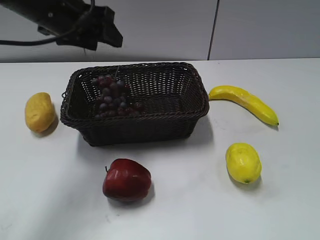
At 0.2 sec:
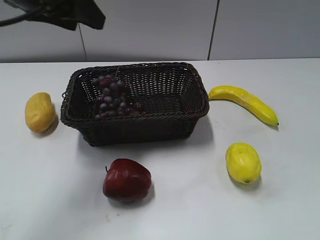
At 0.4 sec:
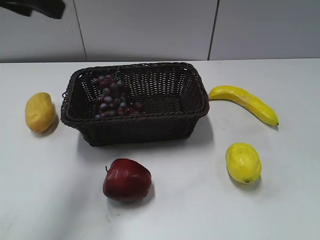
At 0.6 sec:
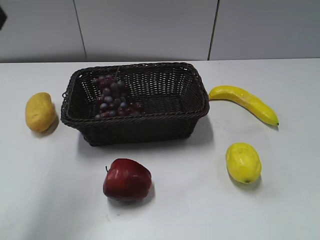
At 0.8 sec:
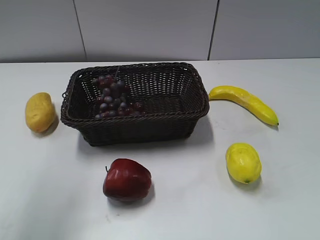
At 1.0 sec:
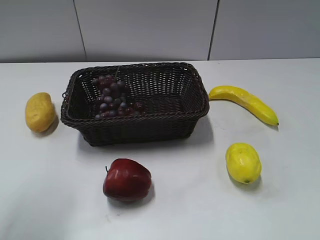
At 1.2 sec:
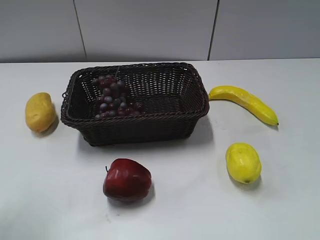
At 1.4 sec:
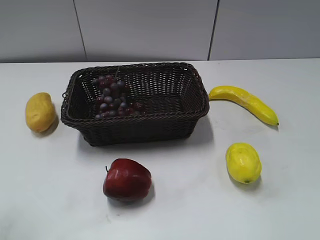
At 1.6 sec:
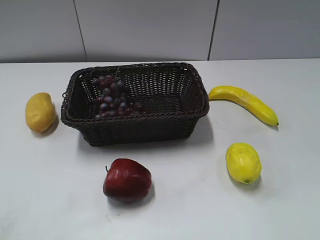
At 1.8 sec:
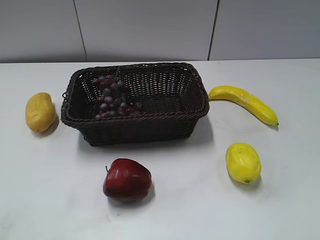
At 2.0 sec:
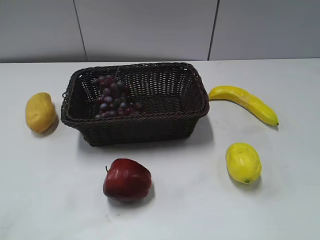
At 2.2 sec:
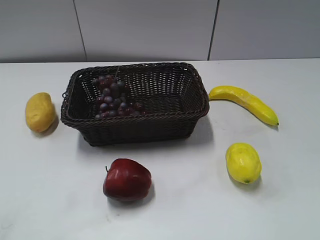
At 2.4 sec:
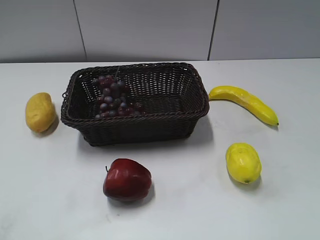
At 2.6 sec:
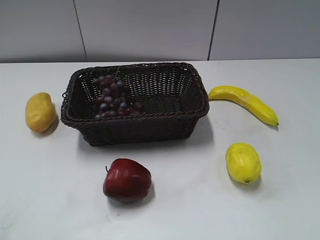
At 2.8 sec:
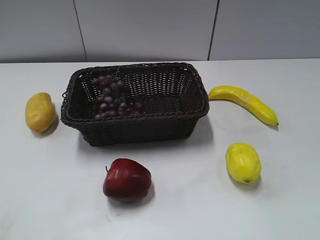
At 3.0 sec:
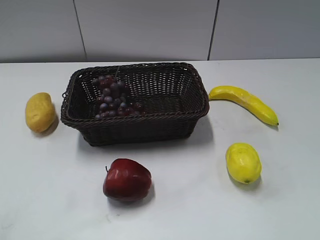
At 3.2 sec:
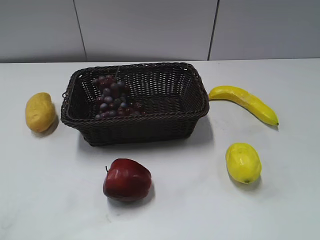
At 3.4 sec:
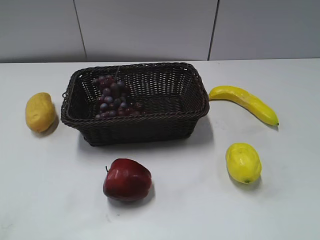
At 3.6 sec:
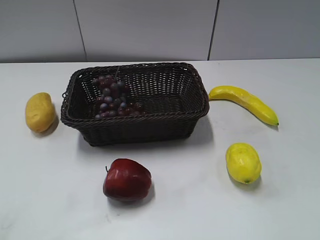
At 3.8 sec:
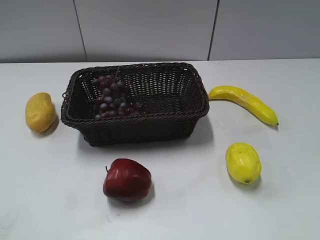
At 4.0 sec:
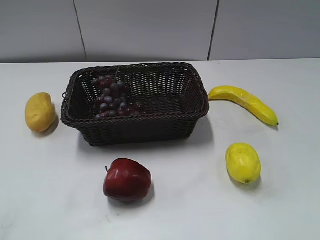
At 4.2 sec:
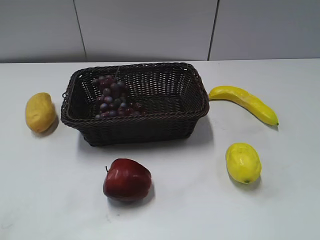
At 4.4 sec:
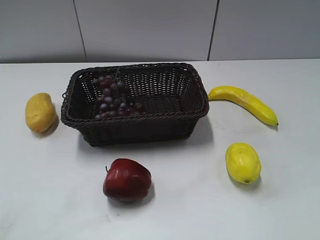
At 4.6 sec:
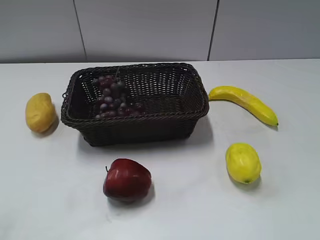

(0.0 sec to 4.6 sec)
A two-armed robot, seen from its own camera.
0.0 sec - 1.6 sec: The left gripper heads backward and to the left, covering some 30 cm.

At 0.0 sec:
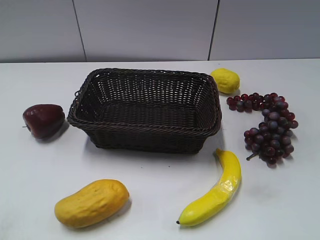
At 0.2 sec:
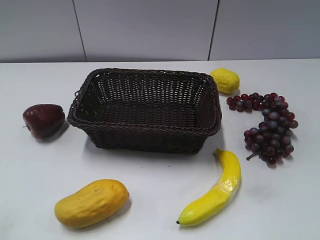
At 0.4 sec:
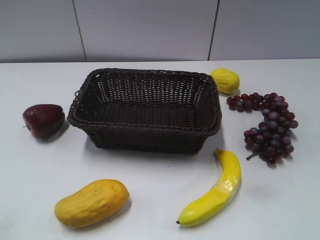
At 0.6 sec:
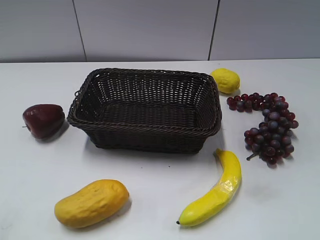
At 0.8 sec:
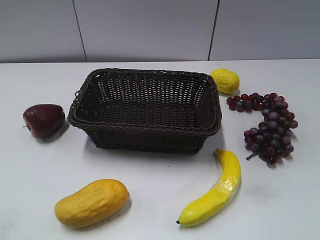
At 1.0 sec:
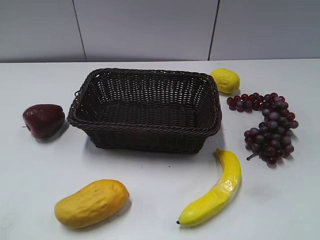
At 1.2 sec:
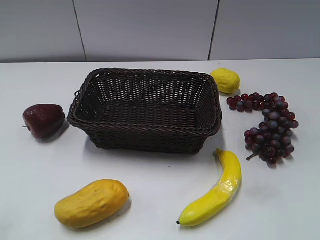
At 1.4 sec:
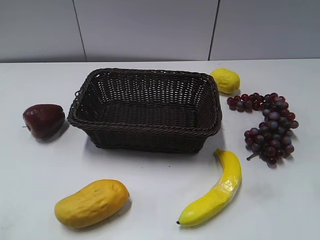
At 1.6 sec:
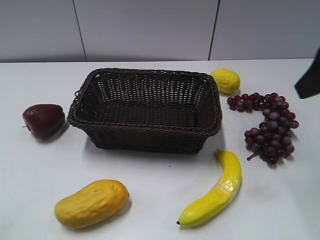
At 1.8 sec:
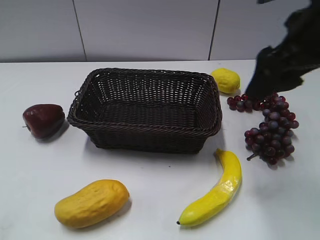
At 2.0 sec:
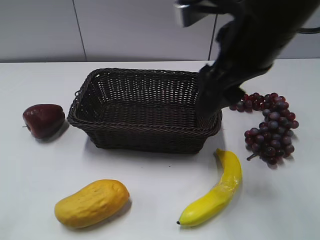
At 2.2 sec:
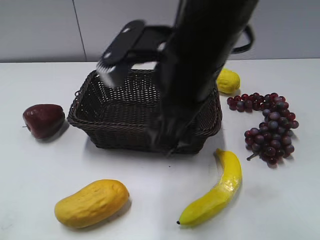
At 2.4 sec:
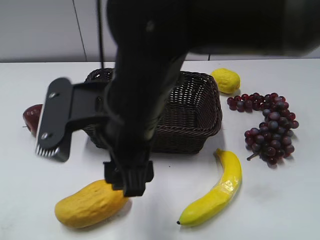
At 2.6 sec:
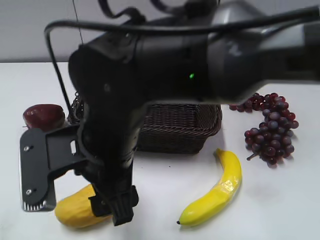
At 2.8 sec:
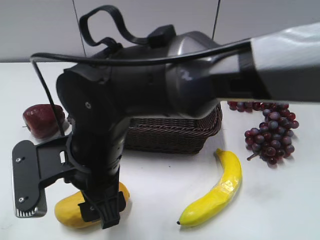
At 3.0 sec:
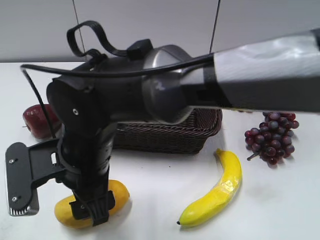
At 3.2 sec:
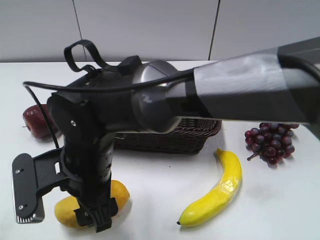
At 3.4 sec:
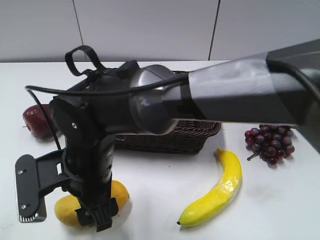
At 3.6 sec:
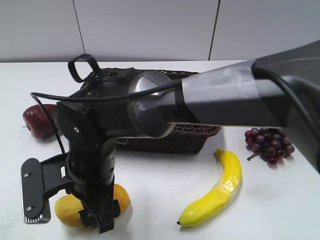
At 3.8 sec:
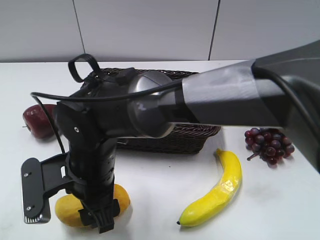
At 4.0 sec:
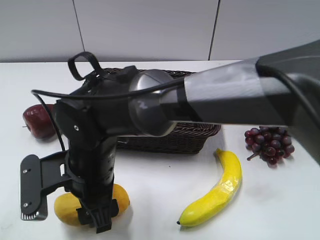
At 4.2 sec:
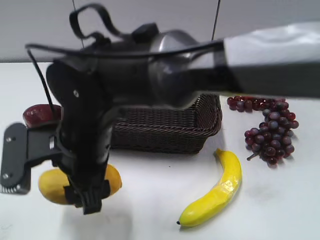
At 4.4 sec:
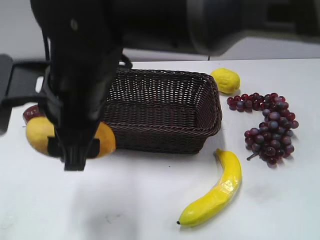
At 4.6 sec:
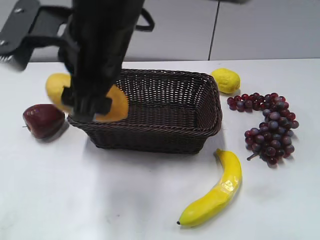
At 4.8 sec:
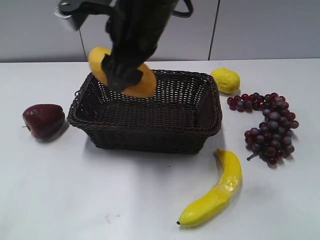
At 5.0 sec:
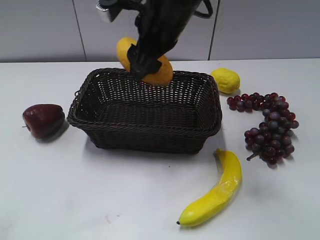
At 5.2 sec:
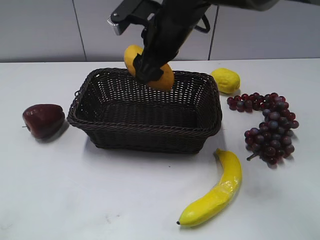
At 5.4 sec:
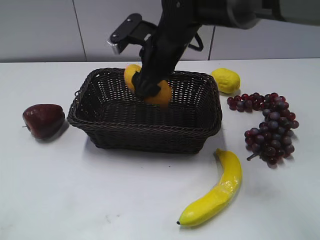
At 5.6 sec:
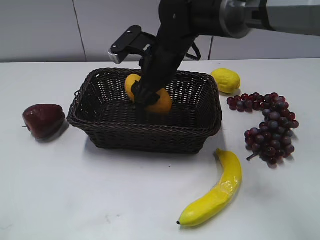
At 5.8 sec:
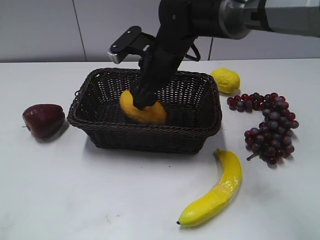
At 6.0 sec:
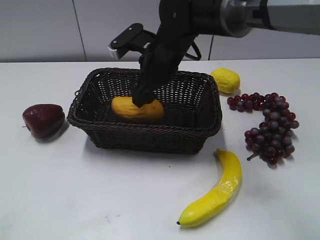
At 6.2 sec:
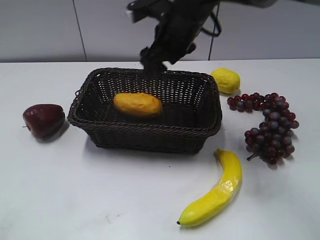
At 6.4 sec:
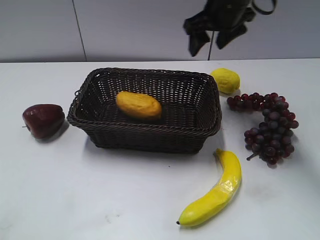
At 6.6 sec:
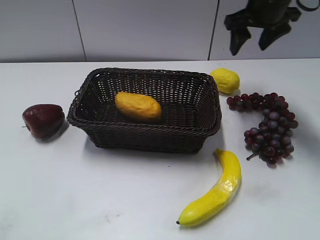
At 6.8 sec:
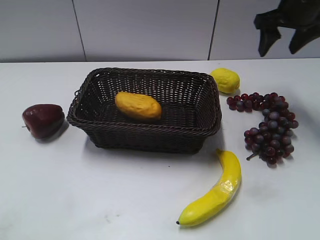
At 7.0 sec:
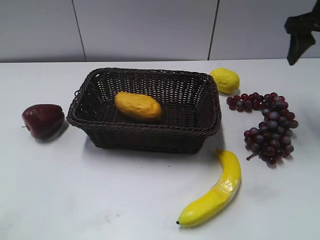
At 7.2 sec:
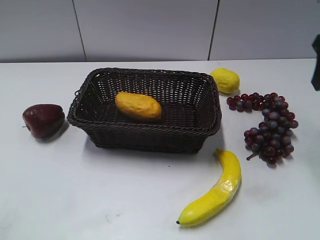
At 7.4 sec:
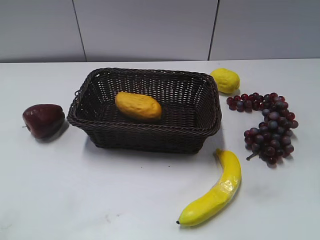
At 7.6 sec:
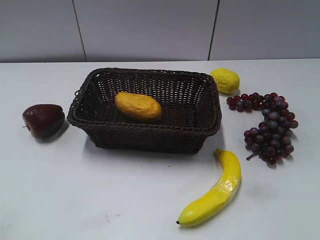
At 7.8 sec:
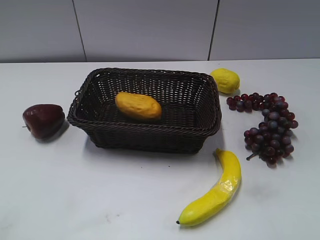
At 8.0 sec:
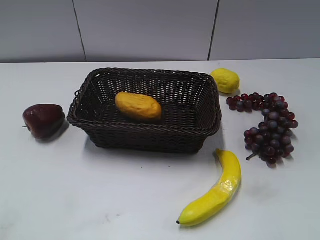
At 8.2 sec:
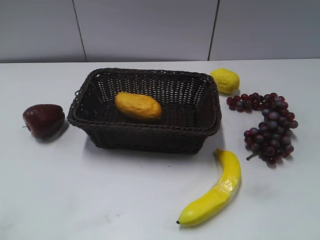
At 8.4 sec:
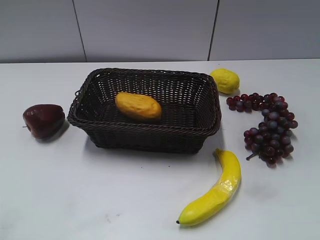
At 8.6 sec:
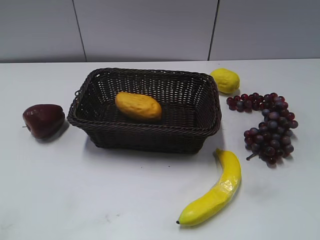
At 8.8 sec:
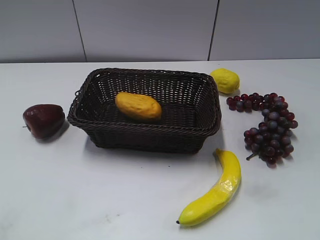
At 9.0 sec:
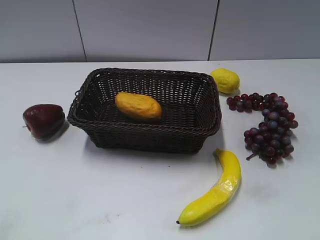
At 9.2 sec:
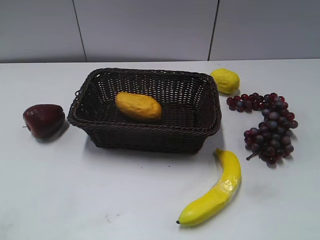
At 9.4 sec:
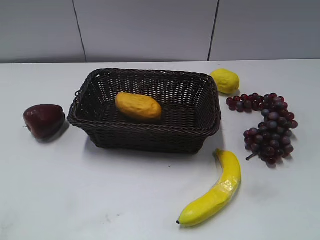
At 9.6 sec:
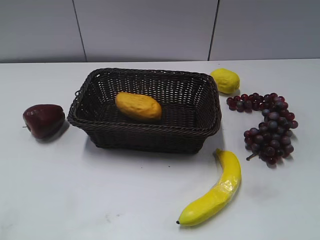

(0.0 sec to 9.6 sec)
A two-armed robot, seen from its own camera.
Step, 1.6 sec - 3.8 sec: Grasp the mango with right gripper.
Step, 4.0 sec - 5.6 sec: Place the mango in the basket with right gripper.
1.6 sec - 3.2 sec: The right gripper shifts about 40 cm to the left and downward.
3.2 sec - 4.8 sec: The left gripper closes up. Meanwhile the right gripper shifts some 20 cm upward, forward and to the right.
4.8 sec - 6.4 sec: The right gripper heads to the right and forward, covering roughly 20 cm, while the left gripper closes its fingers.
6.4 sec - 8.0 sec: The right gripper shifts roughly 40 cm backward and to the right.

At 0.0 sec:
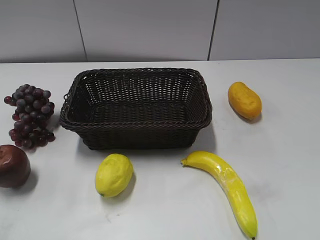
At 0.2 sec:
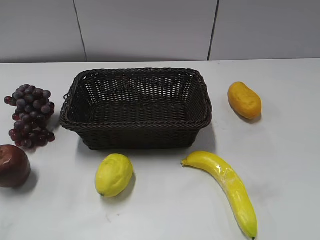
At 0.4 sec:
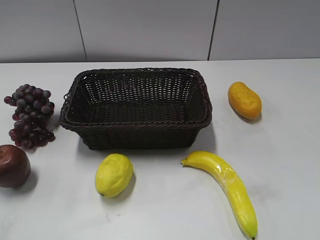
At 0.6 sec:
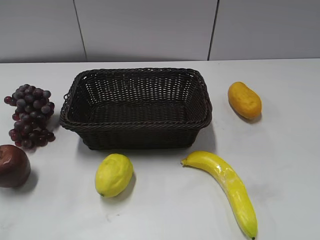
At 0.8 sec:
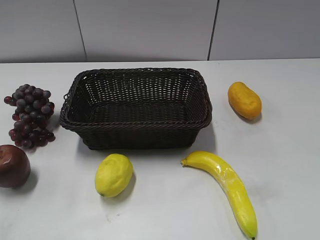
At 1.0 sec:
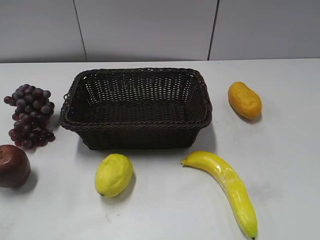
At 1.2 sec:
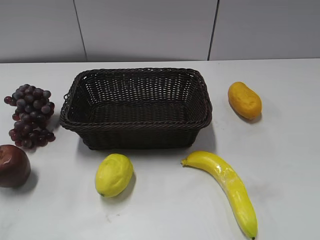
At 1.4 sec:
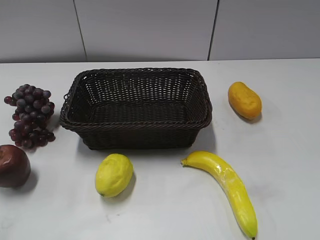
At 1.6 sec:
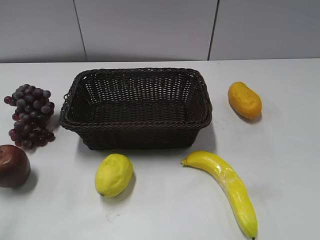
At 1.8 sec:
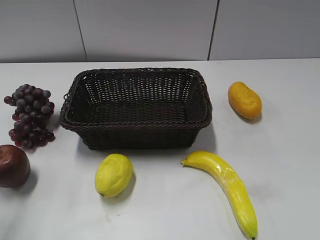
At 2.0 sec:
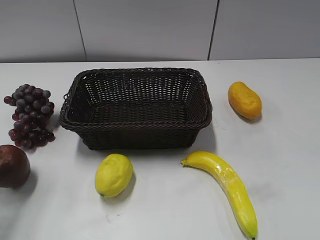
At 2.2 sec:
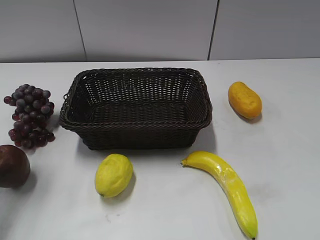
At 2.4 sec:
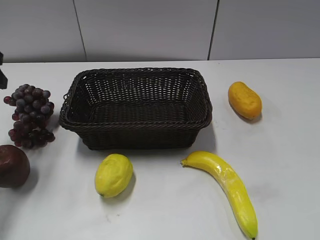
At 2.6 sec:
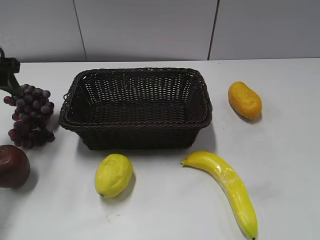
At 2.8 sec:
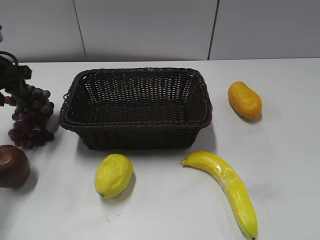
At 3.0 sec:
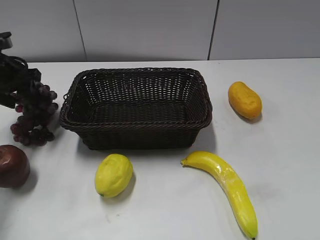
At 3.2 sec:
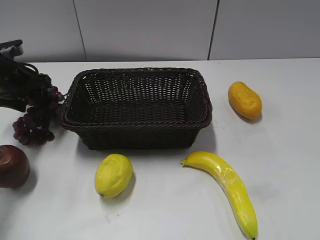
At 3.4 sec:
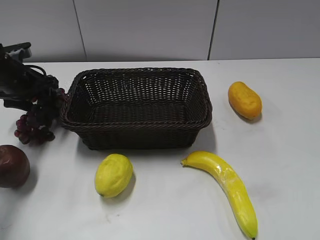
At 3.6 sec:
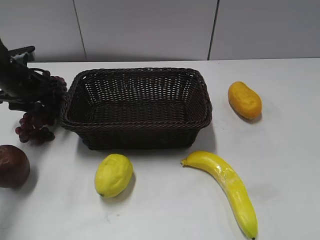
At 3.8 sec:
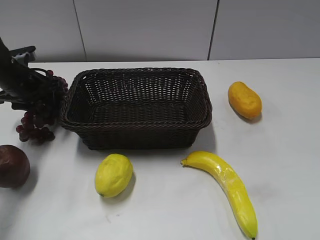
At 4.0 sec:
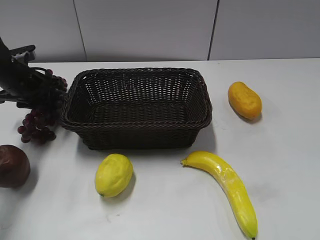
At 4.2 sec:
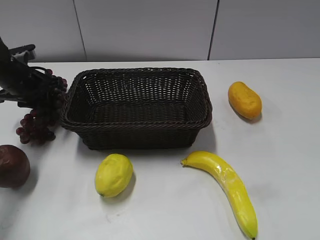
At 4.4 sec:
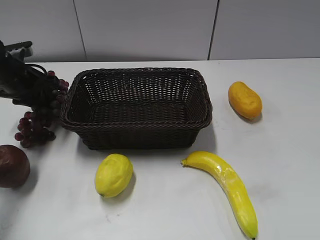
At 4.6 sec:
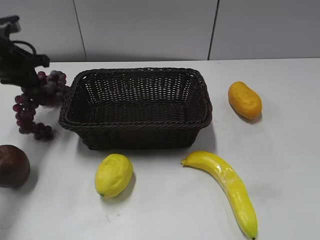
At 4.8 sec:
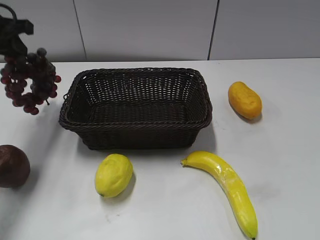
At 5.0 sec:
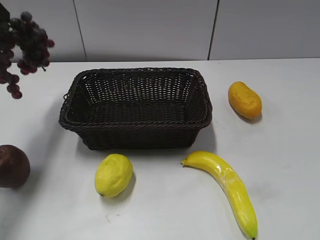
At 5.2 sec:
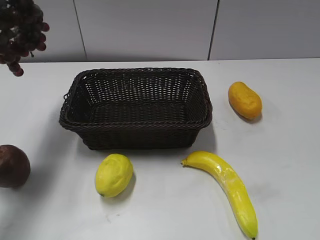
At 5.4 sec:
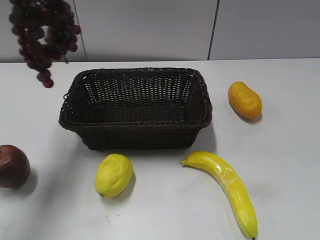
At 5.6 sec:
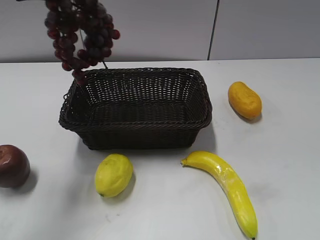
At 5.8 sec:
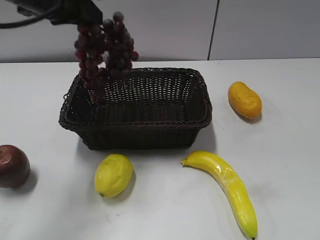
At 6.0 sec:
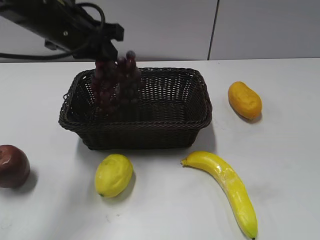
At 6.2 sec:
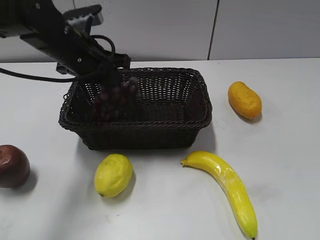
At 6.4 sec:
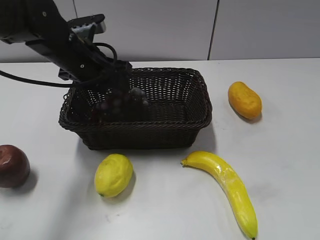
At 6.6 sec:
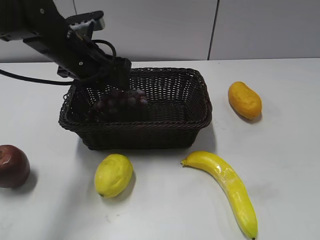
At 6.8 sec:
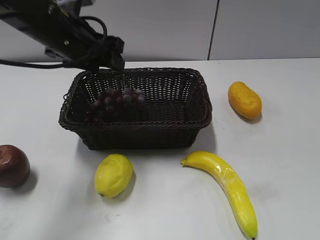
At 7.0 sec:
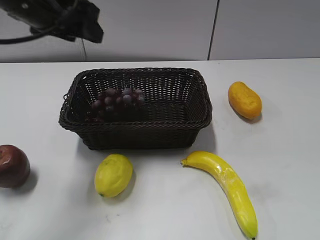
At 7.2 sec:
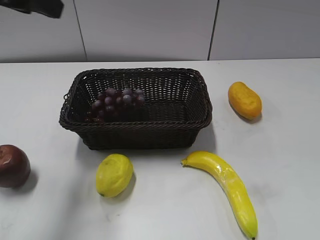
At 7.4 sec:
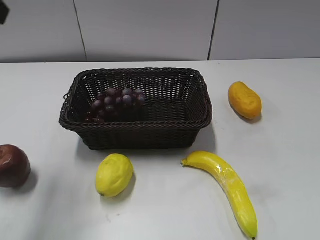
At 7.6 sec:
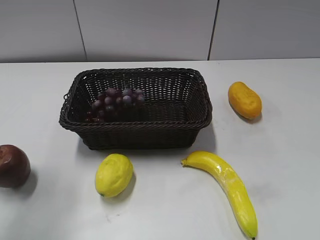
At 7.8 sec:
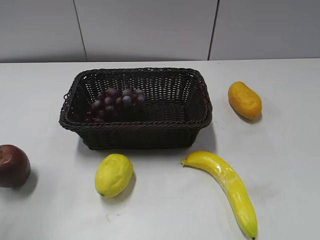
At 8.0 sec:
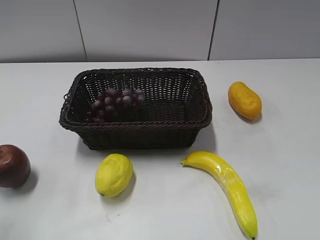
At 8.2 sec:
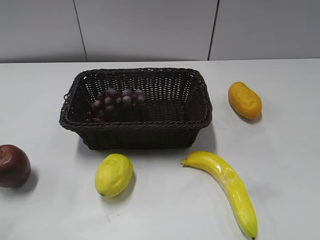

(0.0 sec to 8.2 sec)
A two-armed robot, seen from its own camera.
Step, 2.0 sec - 4.6 sec: Grasp the grape with left gripper.
Step, 4.8 sec - 6.8 sec: Place the grape in the basket with left gripper.
1.6 sec - 3.2 sec: The left gripper goes about 35 cm forward and downward.
3.2 sec - 5.0 sec: The left gripper moves upward, about 20 cm, and closes its fingers.
5.0 sec - 6.6 sec: The left gripper travels to the right and downward by approximately 20 cm, and opens.
6.6 sec - 8.2 sec: The left gripper heads backward and to the left, covering some 35 cm.
